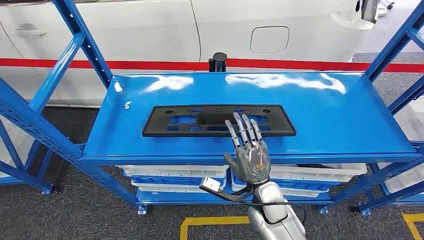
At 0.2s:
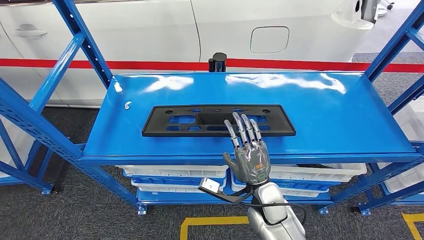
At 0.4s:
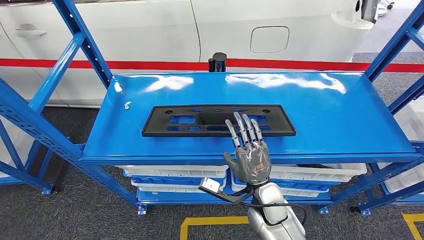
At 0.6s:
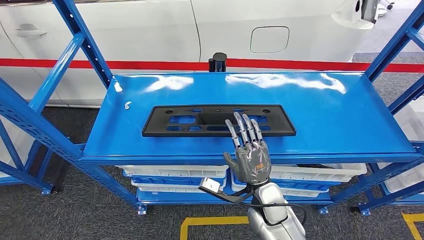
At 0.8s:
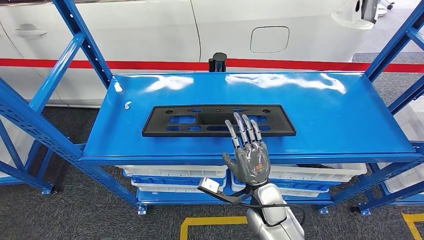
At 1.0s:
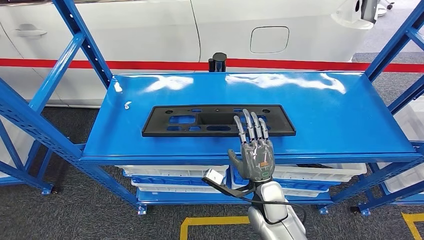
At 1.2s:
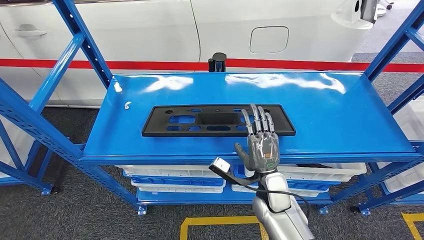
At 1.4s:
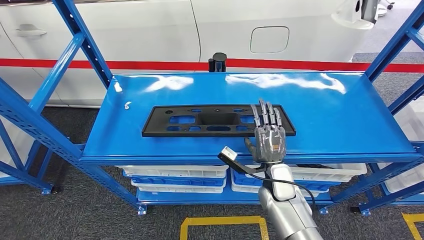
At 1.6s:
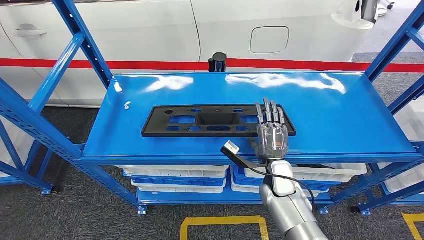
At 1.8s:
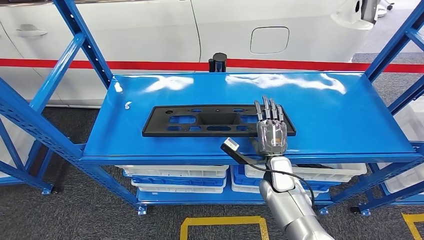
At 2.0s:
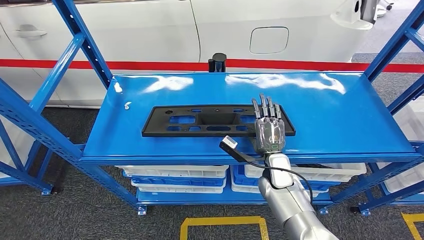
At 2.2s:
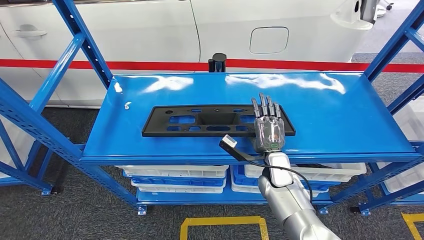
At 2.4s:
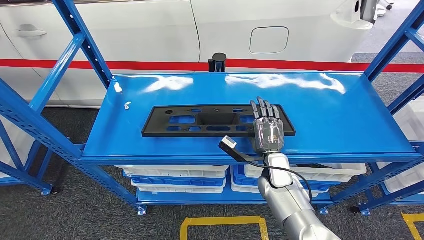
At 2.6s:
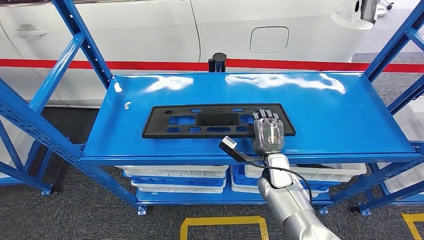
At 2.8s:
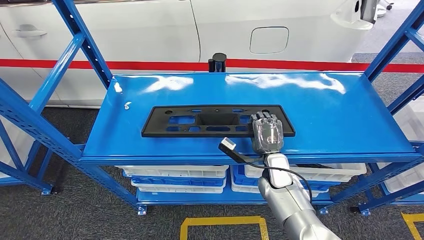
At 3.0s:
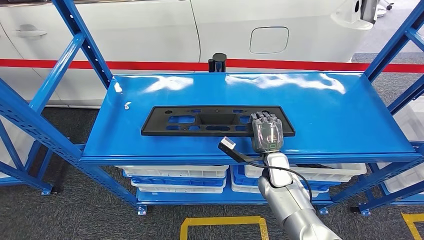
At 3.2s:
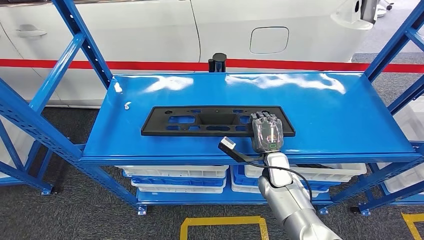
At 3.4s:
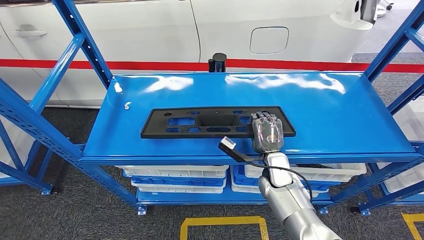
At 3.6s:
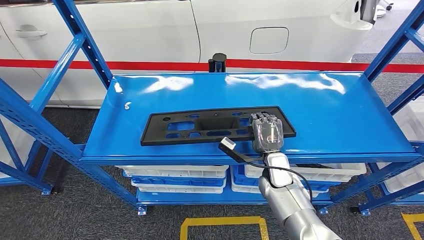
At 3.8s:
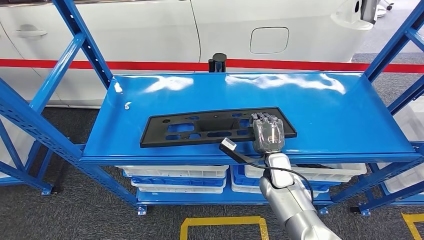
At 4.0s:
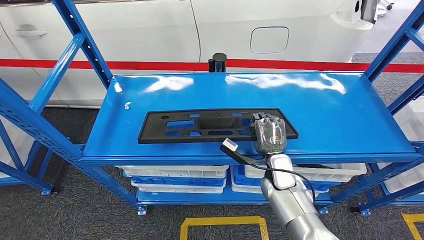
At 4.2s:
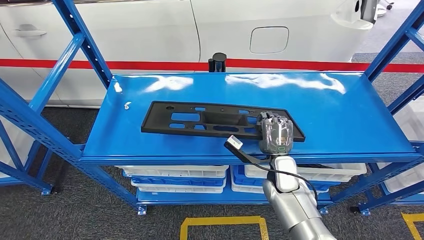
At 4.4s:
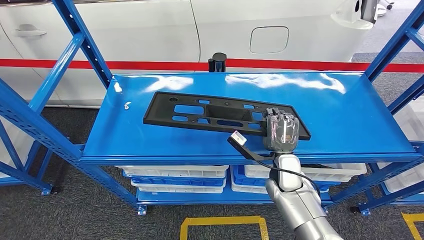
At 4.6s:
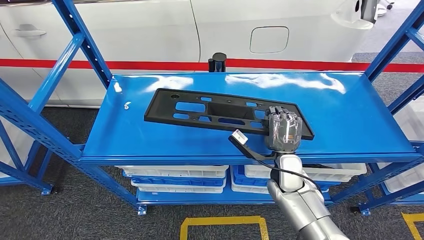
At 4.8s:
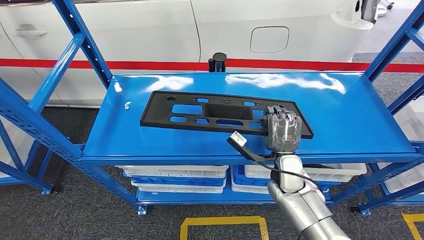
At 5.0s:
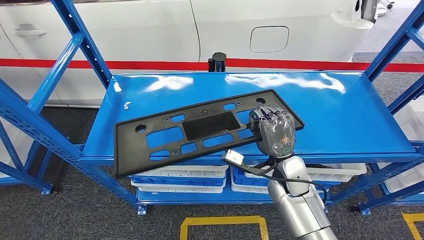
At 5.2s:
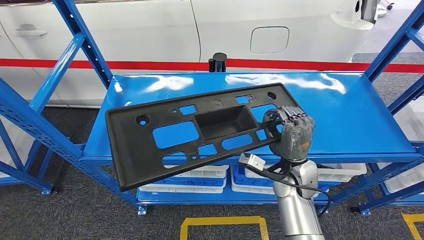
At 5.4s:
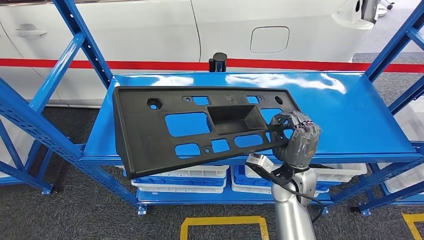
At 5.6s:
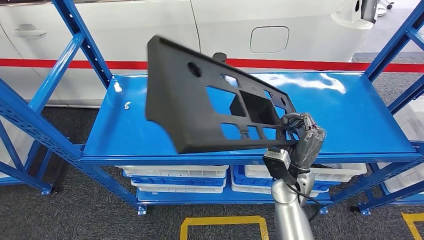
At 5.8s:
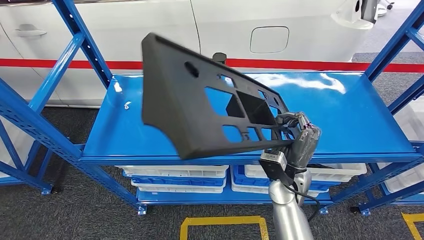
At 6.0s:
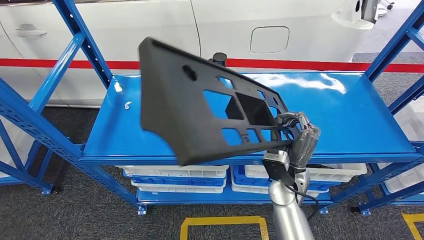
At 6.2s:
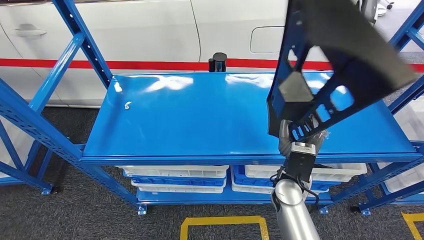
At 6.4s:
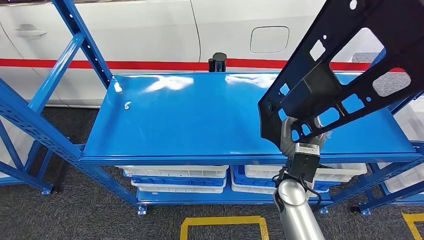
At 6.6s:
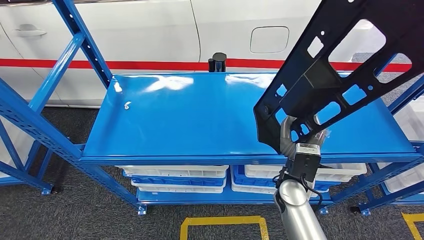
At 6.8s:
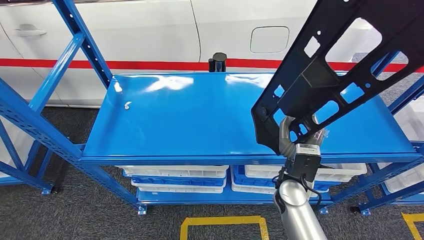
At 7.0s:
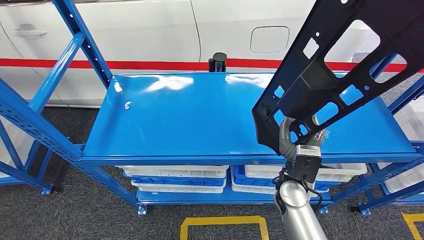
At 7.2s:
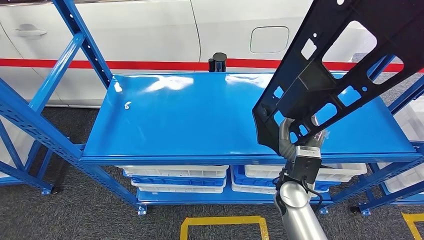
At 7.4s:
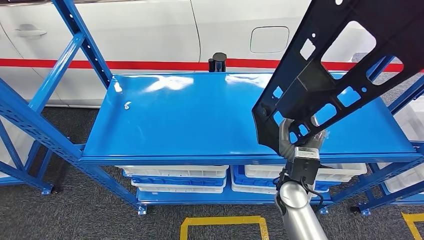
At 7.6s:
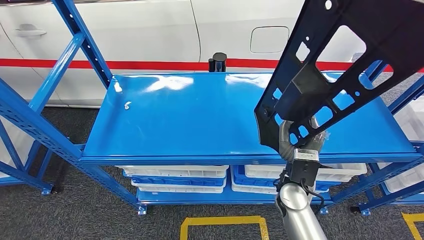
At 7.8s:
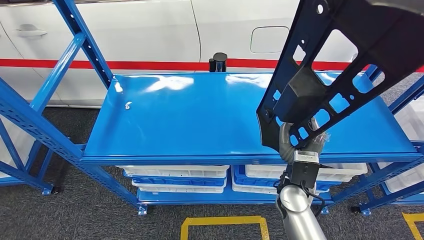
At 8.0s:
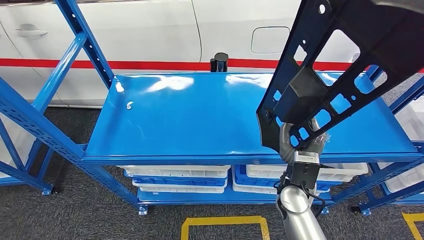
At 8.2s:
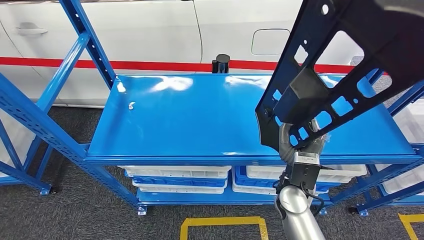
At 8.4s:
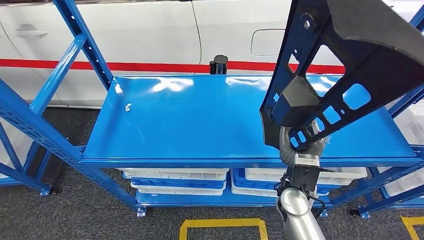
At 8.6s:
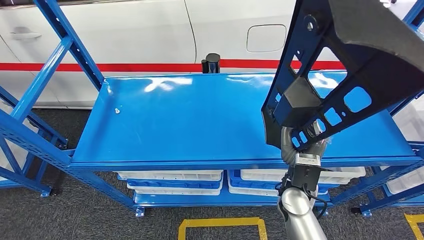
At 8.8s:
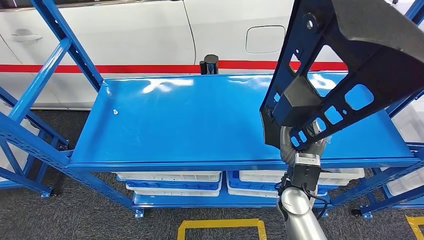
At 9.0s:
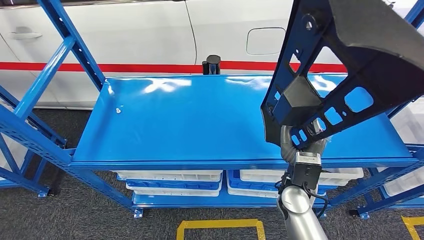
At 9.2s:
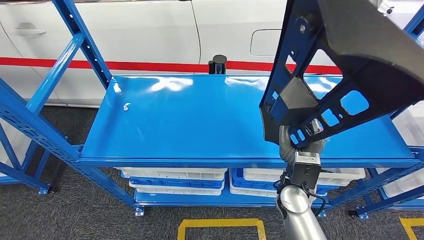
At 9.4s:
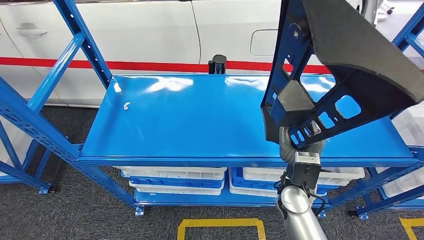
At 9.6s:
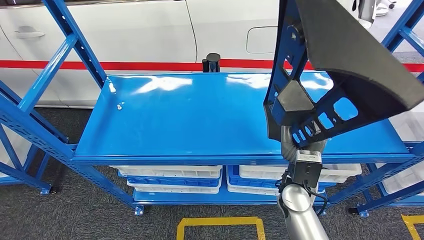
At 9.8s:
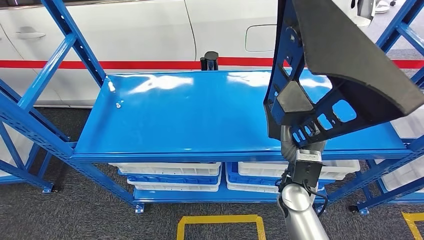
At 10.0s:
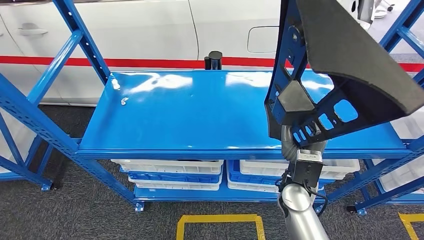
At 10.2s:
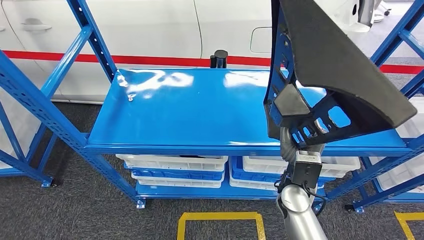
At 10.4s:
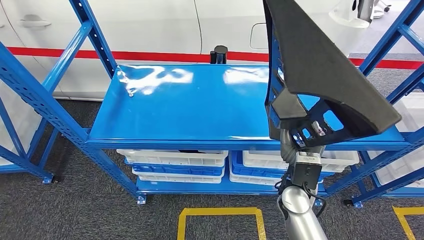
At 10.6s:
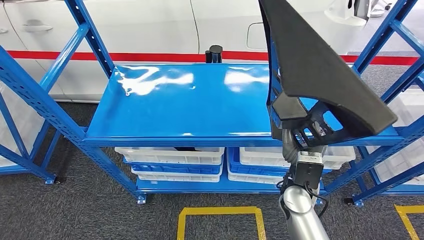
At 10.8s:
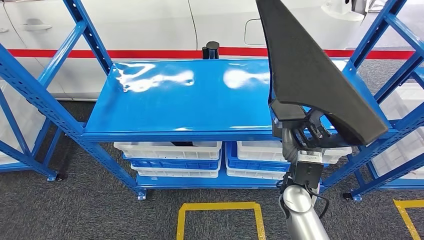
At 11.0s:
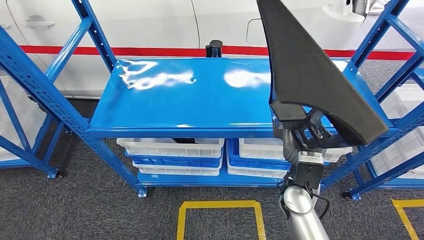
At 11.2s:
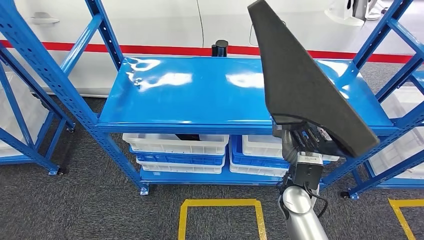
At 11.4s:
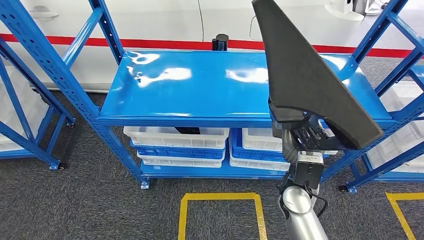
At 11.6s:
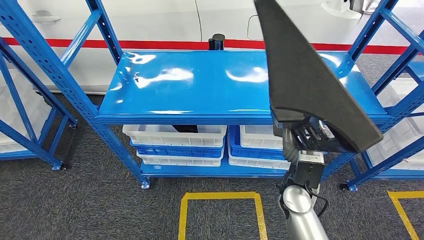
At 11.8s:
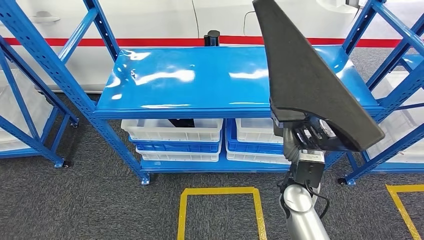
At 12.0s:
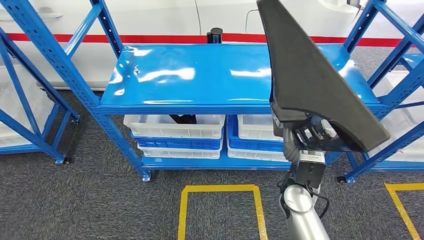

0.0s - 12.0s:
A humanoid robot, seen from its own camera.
Step, 0.0s - 11.8s: Pick up the large material from the shelf.
1.6s - 4.4s: There are only small adjustments of the hands.

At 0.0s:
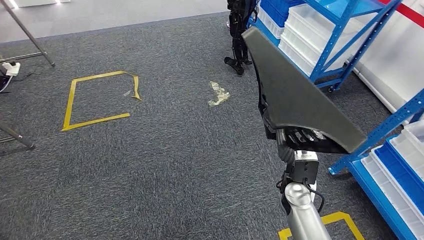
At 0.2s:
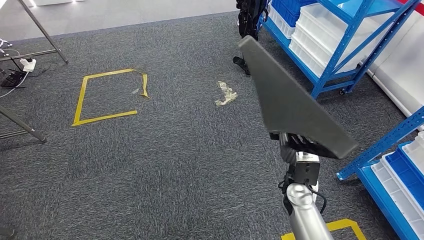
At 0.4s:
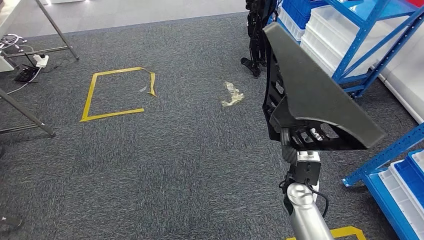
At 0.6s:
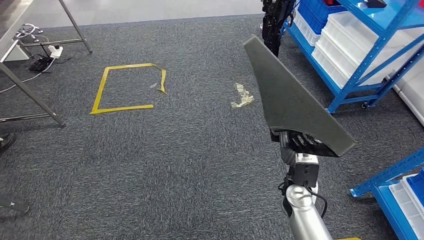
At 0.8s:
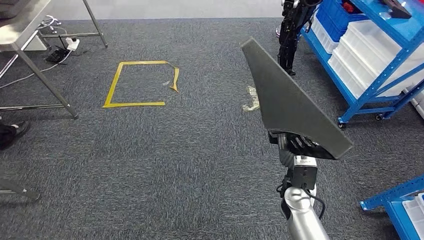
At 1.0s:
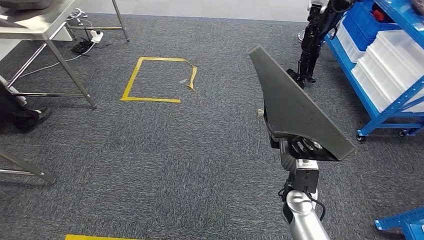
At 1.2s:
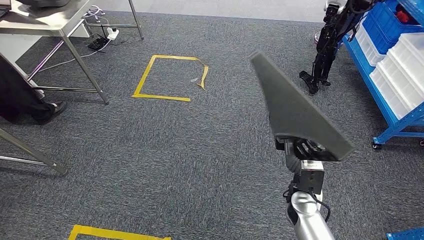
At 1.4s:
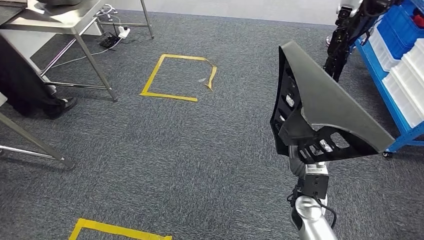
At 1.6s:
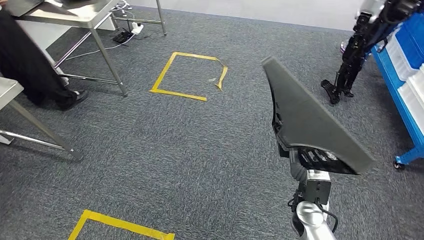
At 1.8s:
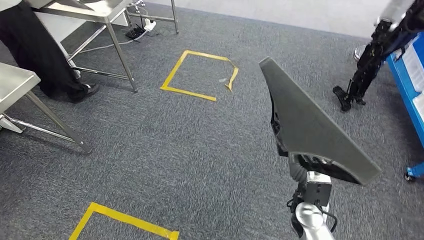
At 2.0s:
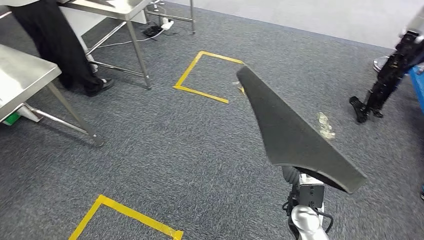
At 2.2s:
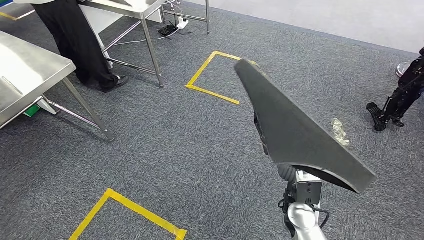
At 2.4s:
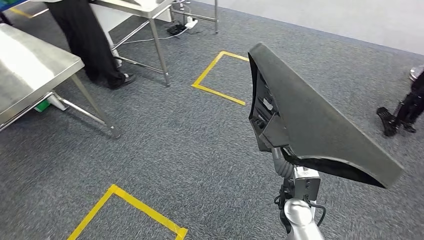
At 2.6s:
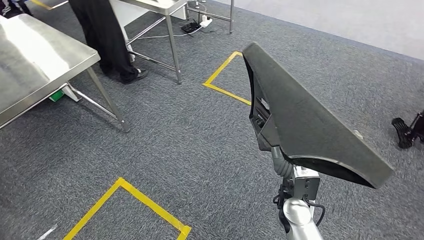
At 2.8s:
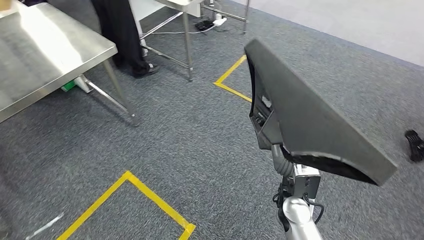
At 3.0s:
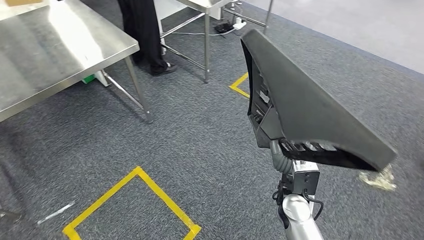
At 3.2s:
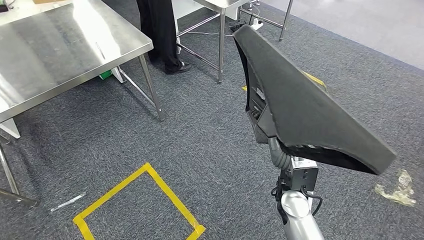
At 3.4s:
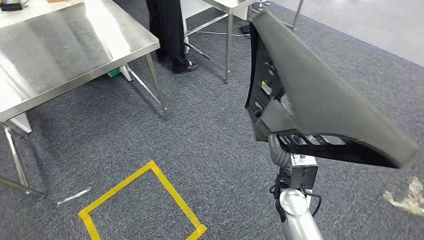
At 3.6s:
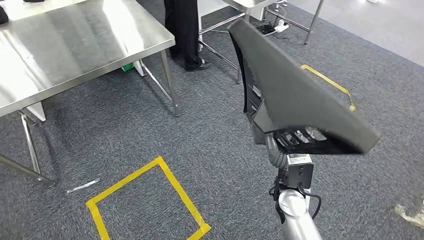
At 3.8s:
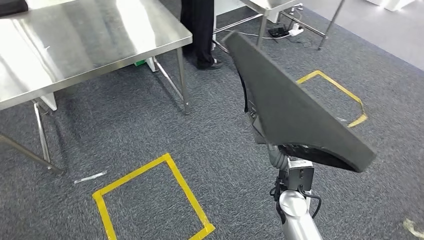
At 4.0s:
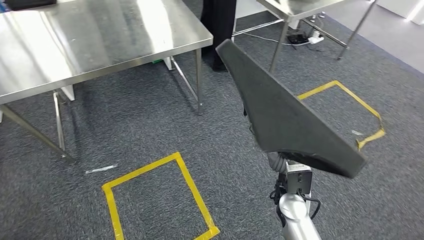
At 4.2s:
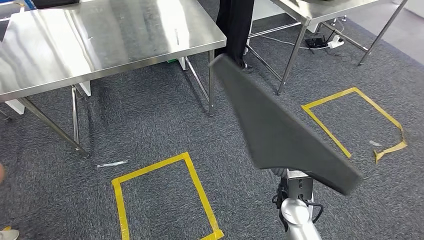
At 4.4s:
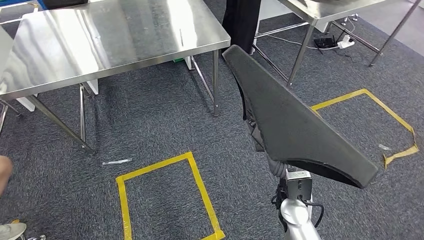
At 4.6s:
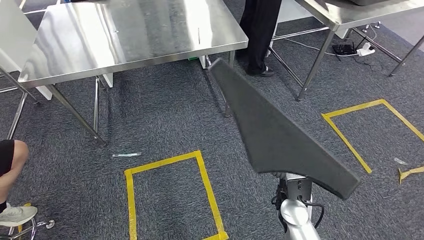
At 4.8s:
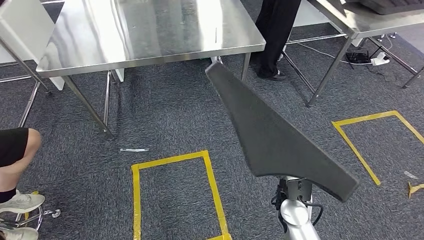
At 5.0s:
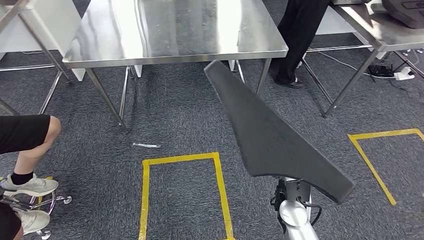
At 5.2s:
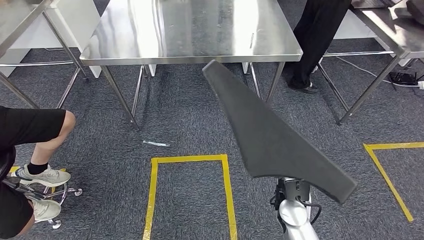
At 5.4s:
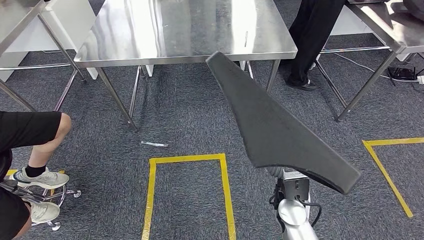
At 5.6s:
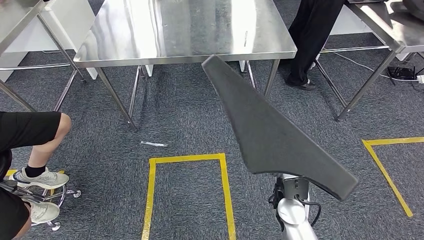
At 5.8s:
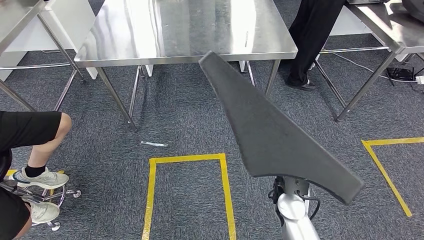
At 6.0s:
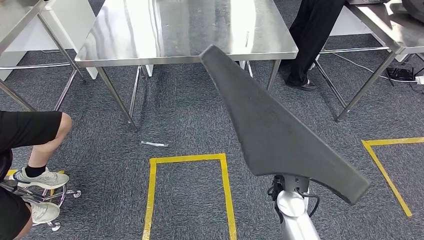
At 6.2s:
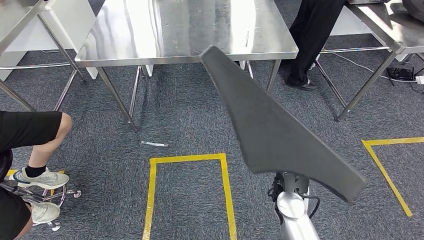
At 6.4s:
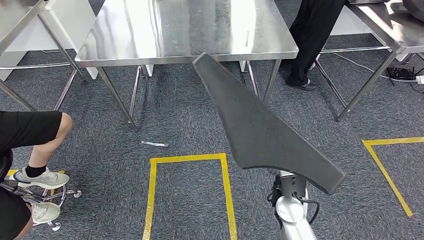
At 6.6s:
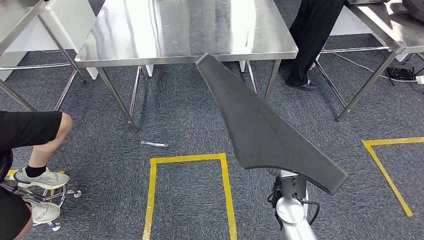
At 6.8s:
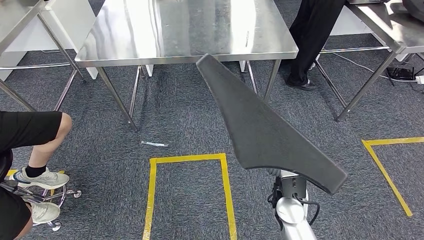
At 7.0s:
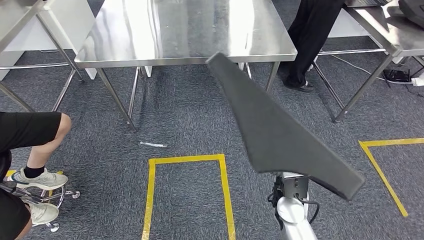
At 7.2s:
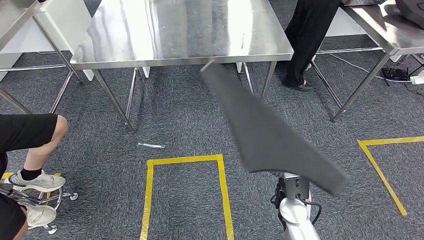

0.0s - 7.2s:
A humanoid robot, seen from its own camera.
5.8s - 7.2s: There are only small adjustments of the hands.
